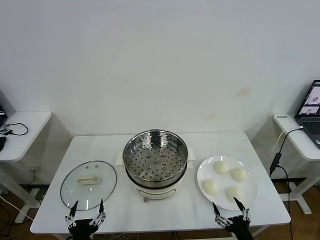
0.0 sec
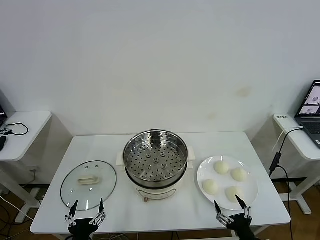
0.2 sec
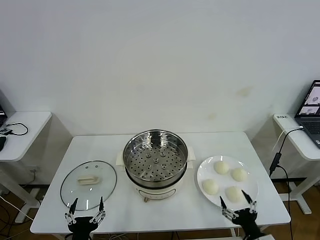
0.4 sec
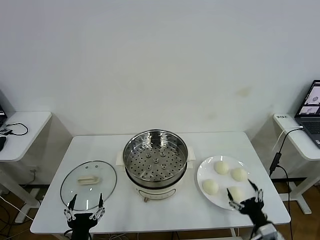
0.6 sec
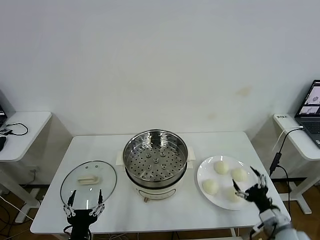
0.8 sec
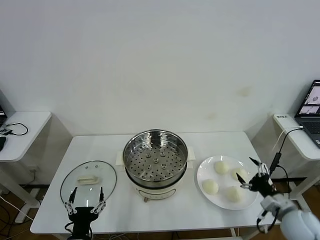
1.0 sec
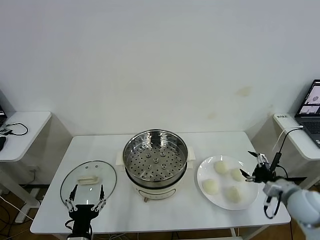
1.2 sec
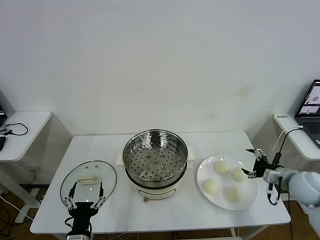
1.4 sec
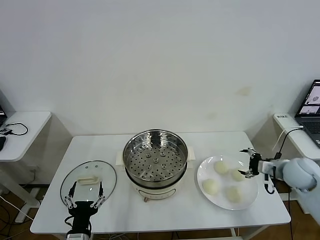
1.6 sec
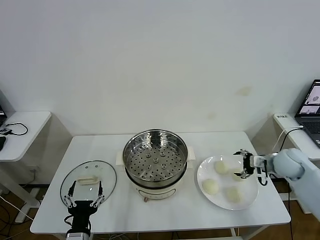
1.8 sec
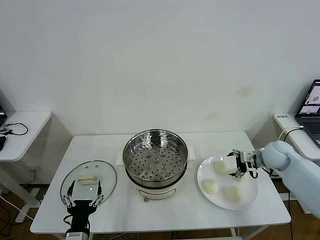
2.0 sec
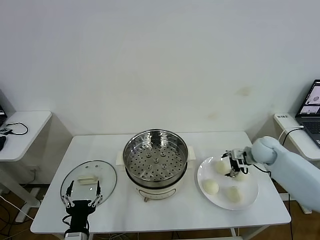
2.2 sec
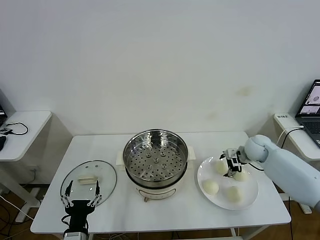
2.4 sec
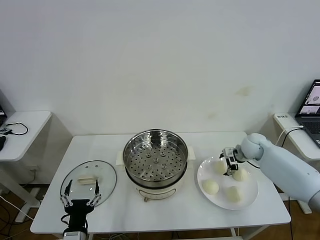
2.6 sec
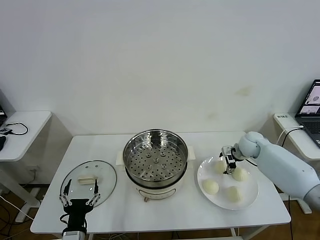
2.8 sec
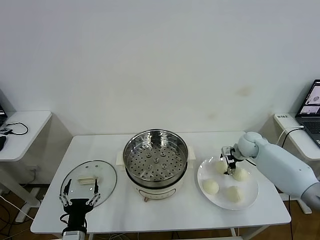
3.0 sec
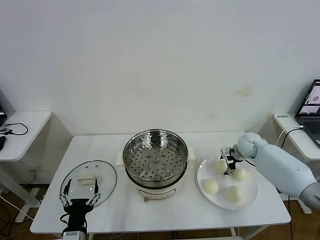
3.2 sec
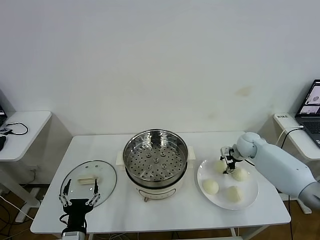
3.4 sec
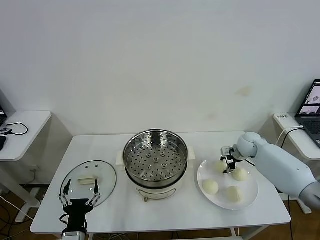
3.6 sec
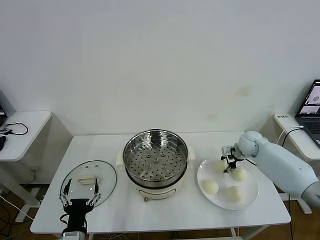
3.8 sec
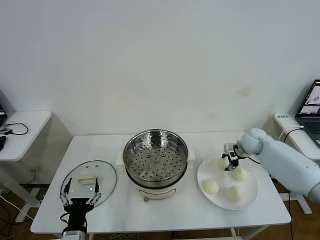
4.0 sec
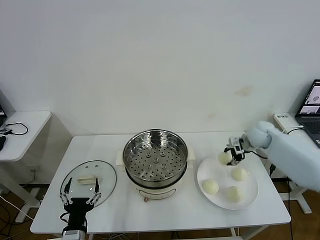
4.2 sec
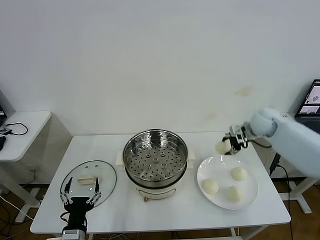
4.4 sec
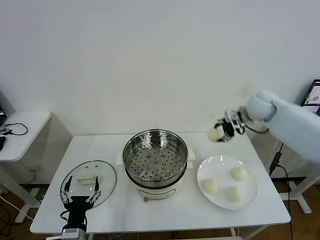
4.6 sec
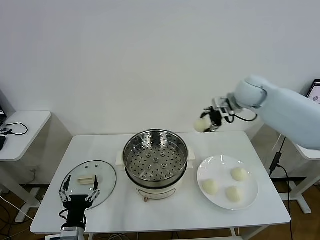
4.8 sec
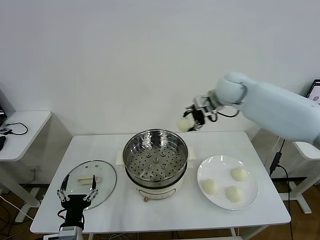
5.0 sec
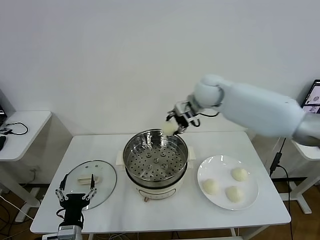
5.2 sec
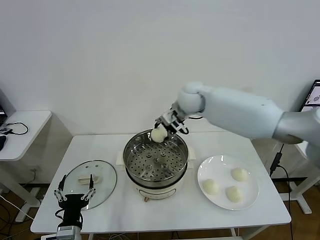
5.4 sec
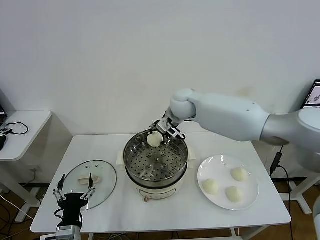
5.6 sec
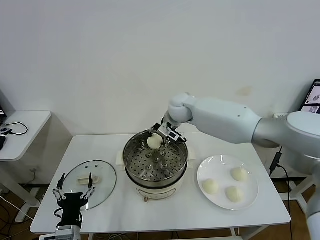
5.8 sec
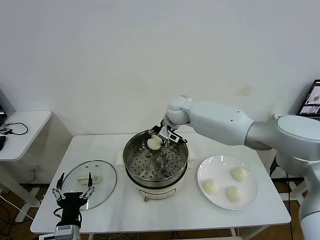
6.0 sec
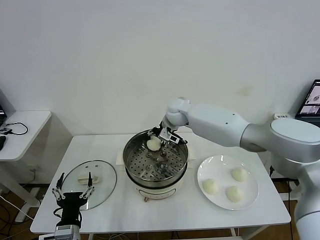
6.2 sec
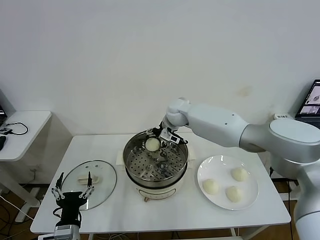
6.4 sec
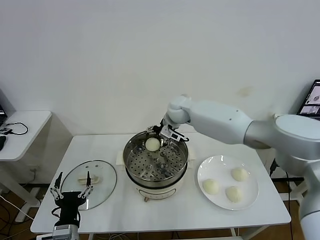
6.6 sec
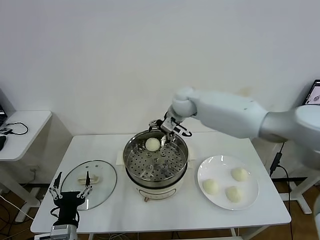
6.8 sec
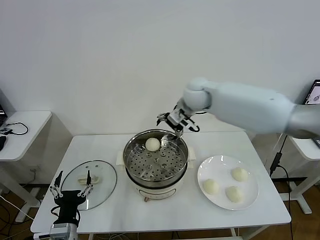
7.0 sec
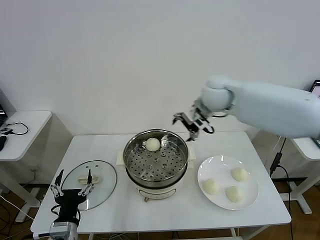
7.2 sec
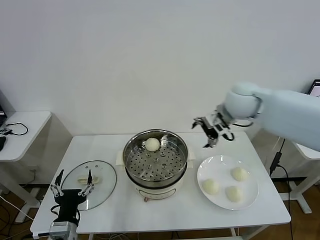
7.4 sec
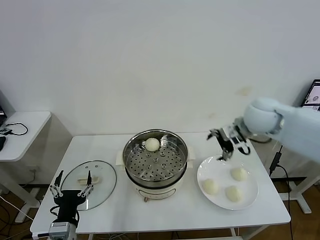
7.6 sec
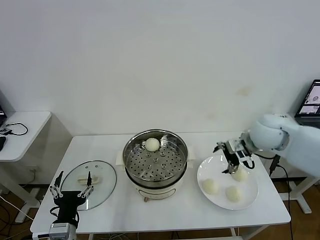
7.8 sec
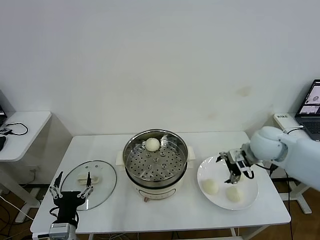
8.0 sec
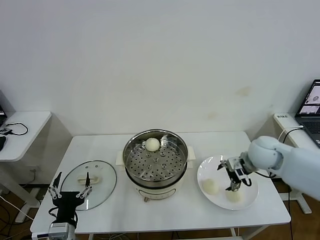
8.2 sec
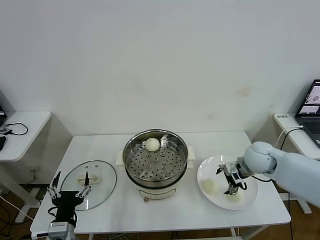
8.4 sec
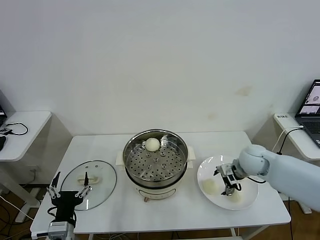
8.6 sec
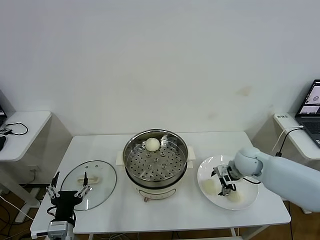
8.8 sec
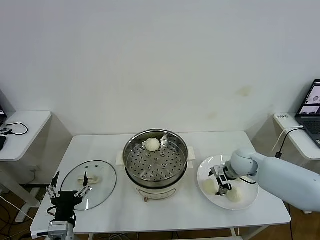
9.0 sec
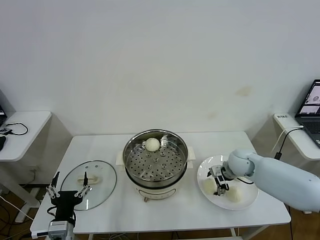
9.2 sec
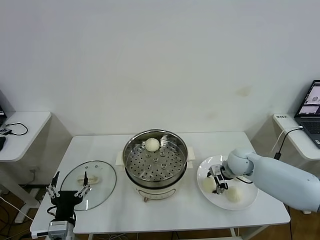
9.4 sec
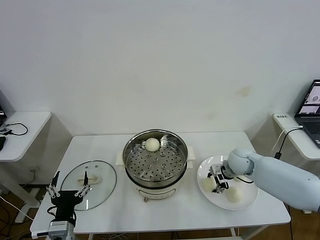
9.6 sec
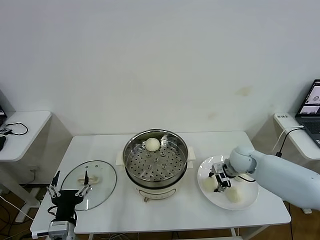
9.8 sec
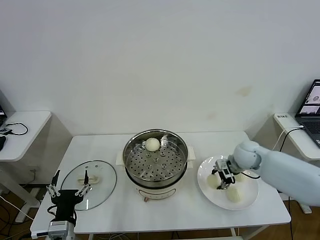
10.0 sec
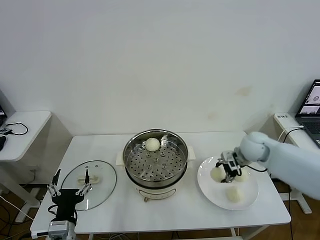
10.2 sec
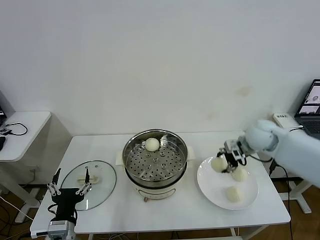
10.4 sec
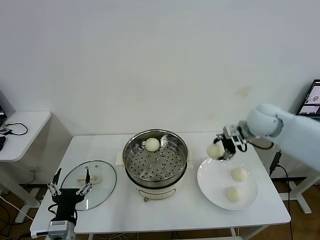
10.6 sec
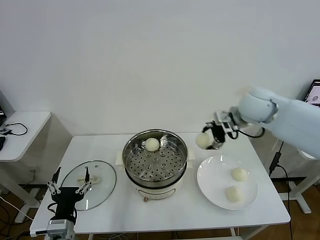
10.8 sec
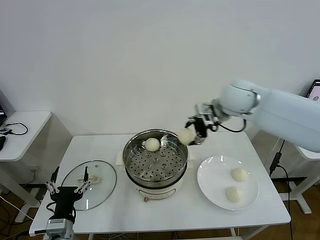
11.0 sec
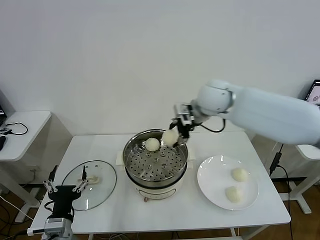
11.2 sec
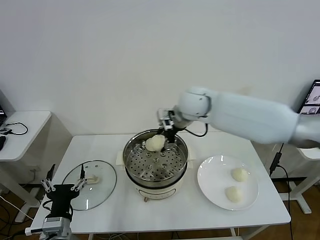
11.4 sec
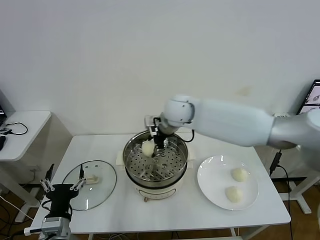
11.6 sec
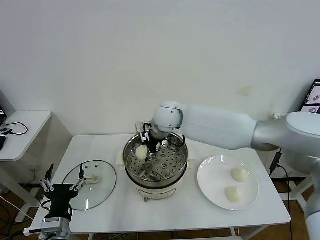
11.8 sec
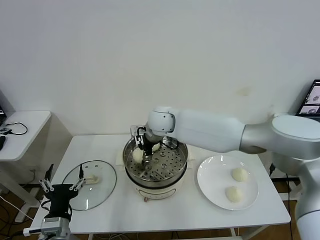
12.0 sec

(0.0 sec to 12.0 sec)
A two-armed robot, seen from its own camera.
Task of the whole recording: take steamed baozi put them in steamer then cover it.
Step, 0.0 sec - 3.4 sec: Grasp the baozi in the plate with right gripper.
Step, 3.6 sec - 6.2 sec: Place the baozi on the steamer with right gripper.
Step, 6.4 sec - 9.6 sec: Grasp the baozi in the plate with right gripper.
1.6 sec - 3.0 sec: The right gripper shifts some 15 cm forward and to the left.
3.0 sec - 4.4 sec: The right gripper is displaced upward by about 15 cm, and closes.
4.4 sec - 6.0 sec: The right gripper shifts approximately 25 cm to the left.
6.0 sec - 7.6 sec: The right gripper goes roughly 30 cm to the right and backward, and opens up.
7.6 sec - 9.0 sec: The right gripper is displaced downward by about 20 cm.
9.0 sec - 10.4 sec: The right gripper moves upward, roughly 15 cm, and closes up.
10.4 sec - 12.0 sec: The right gripper shifts roughly 30 cm to the left.

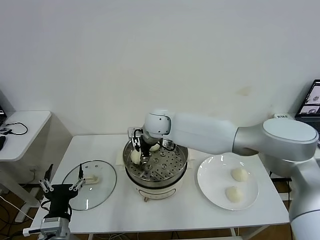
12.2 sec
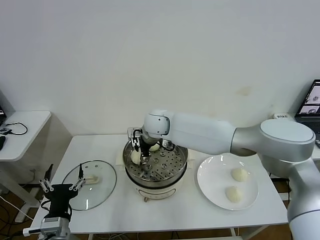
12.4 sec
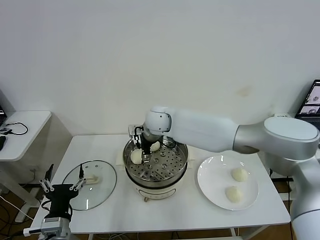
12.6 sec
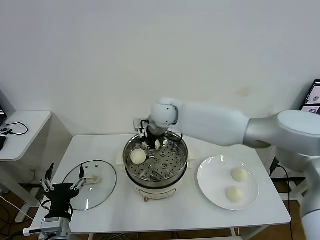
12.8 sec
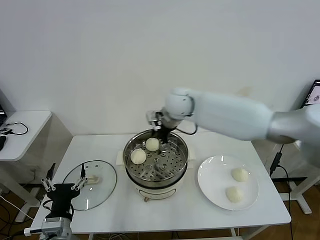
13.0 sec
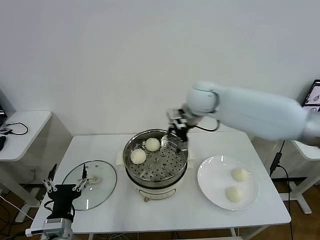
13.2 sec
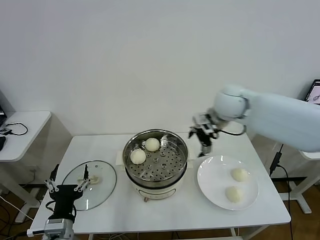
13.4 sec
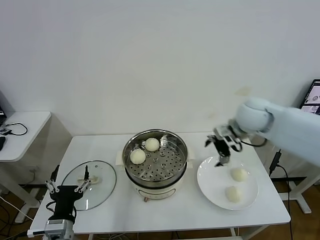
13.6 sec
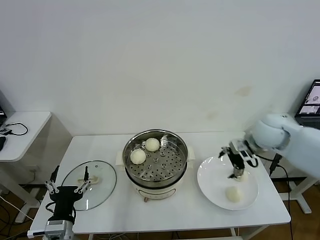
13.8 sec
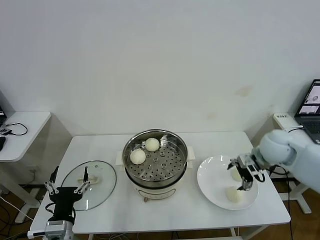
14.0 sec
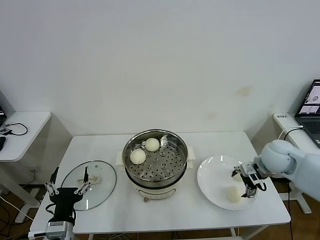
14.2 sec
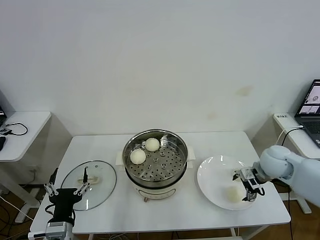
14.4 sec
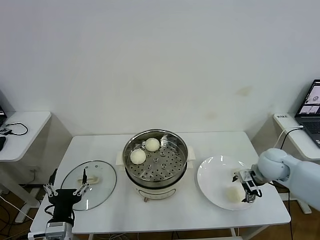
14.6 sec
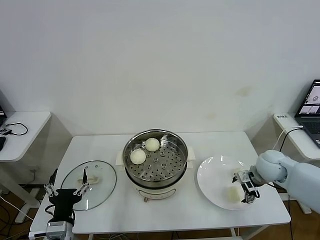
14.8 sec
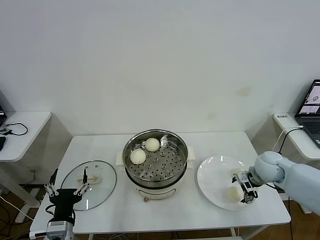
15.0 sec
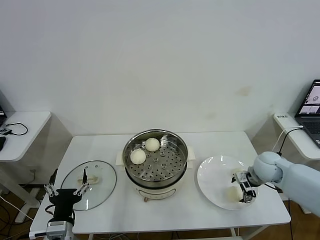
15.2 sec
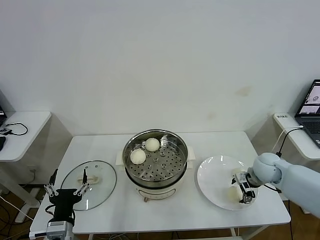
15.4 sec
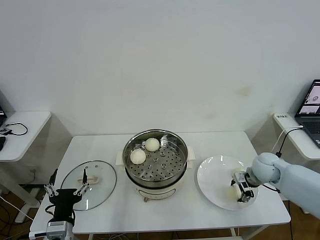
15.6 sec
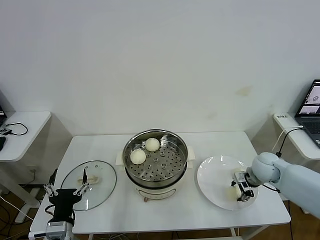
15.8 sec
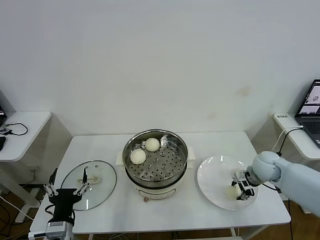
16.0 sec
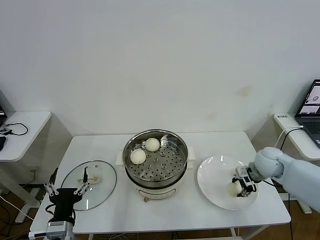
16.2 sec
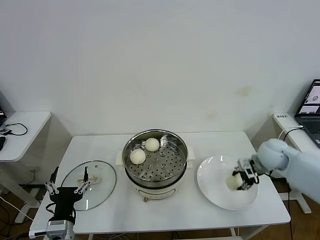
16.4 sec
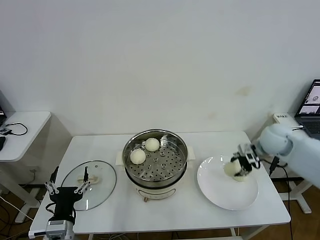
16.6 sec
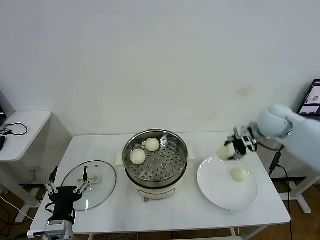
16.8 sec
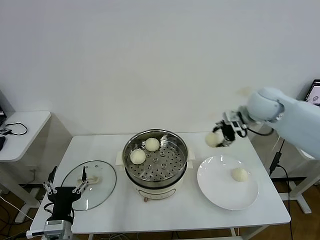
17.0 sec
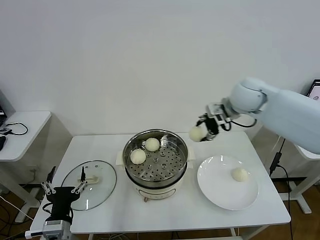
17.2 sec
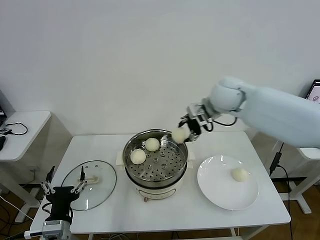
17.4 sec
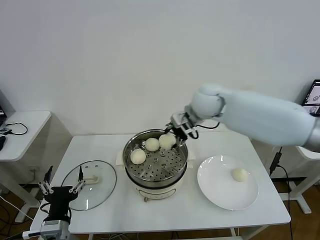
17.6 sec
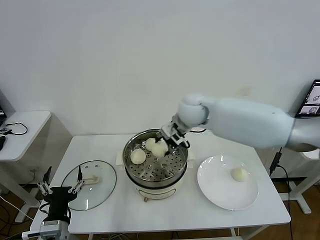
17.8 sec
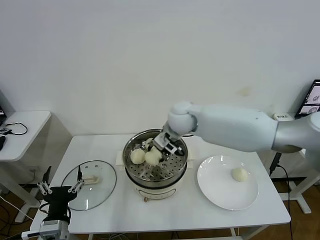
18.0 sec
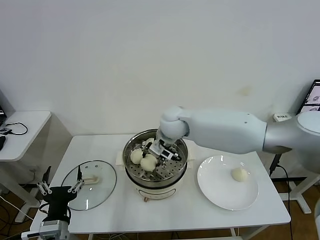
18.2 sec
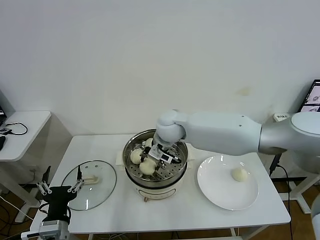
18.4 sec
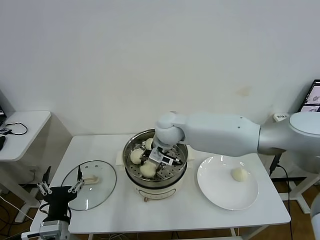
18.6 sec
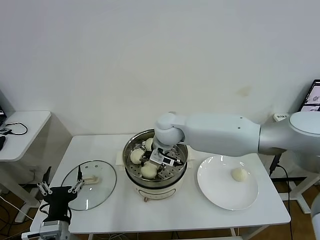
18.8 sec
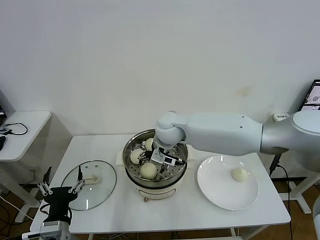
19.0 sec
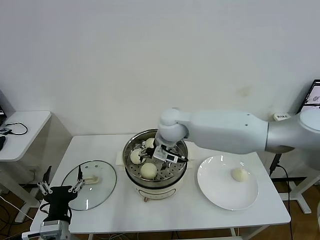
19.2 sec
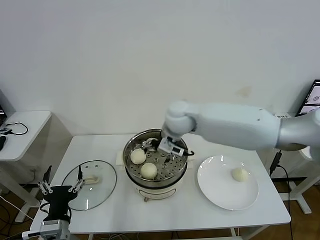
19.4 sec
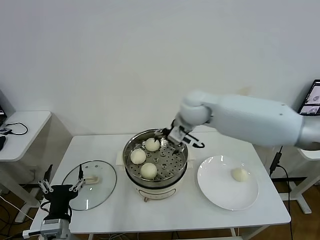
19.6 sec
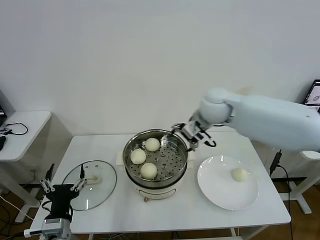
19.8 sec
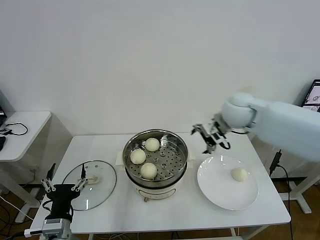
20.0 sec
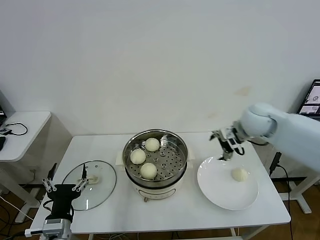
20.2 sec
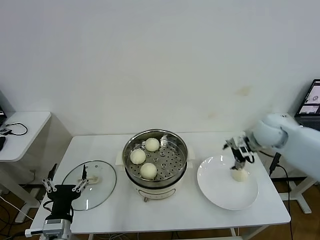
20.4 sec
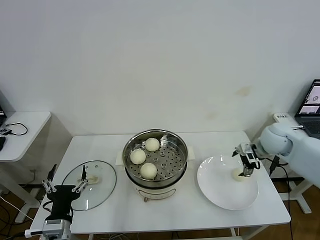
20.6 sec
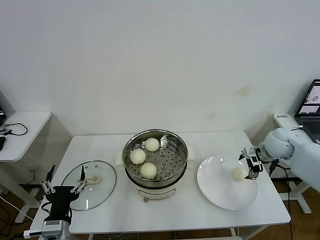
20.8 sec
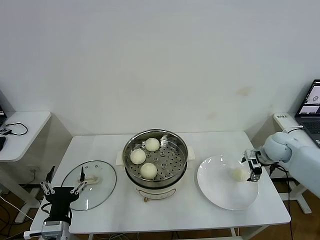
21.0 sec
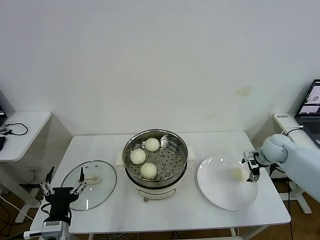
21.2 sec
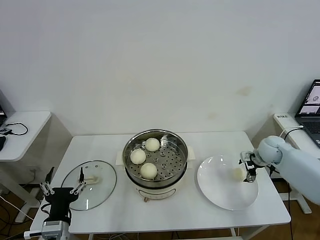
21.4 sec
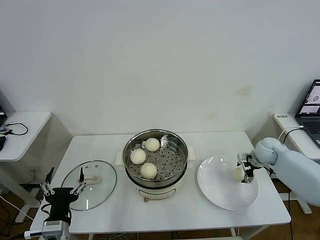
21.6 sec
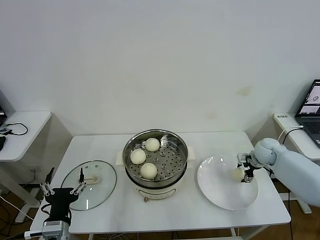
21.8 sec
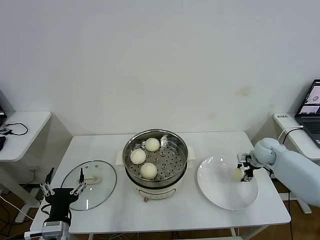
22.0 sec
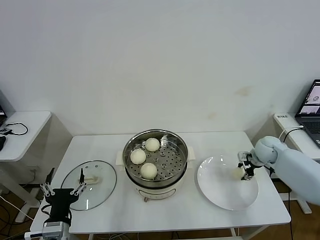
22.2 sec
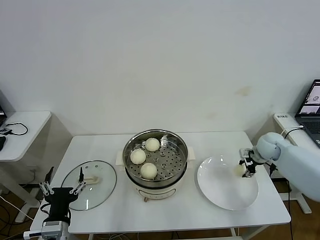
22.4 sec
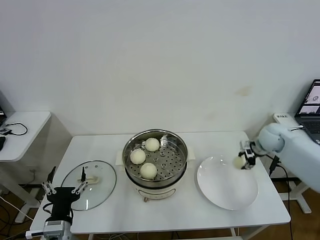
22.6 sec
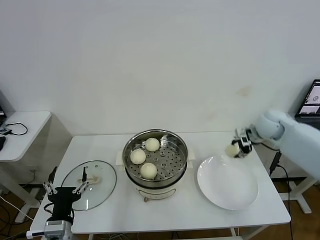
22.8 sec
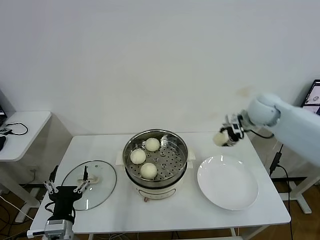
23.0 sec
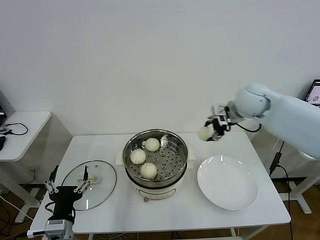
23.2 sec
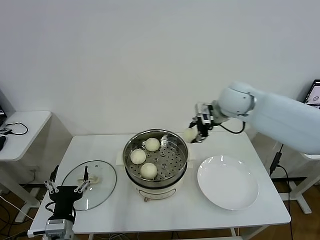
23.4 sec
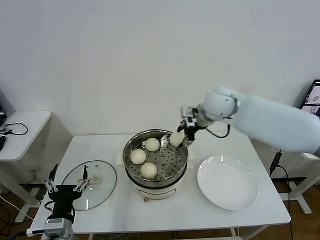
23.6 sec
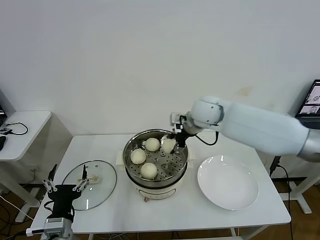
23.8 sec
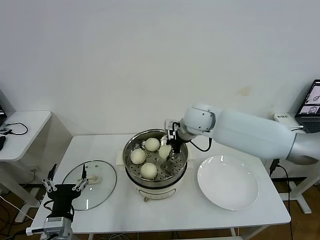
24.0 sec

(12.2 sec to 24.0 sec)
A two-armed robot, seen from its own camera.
Task of the whole recording: take steamed baozi put them in steamer then cover it.
Step, 12.6 sec - 15.8 sec: Grasp the baozi in the plate with right gripper.
Step, 16.0 sec - 18.8 sec: Place the baozi on the steamer with right gripper.
Step, 19.0 sec - 22.0 sec: Grasp the baozi in the plate with right gripper.
12.2 sec - 13.6 sec: The right gripper is displaced to the right by some 30 cm, and opens its fingers.
13.6 sec - 15.2 sec: The right gripper travels downward and to the right by approximately 20 cm.
15.2 sec - 16.6 sec: The right gripper is displaced upward by some 10 cm, and closes its fingers.
16.6 sec - 18.2 sec: The right gripper is displaced to the left by approximately 35 cm.
18.2 sec - 19.6 sec: The right gripper travels to the right and upward by approximately 10 cm, and opens.
19.6 sec - 21.0 sec: The right gripper heads to the right and downward, covering about 35 cm.
21.0 sec - 22.6 sec: The right gripper travels downward and back again, some 5 cm each way, and closes.
22.6 sec - 24.0 sec: The right gripper shifts roughly 30 cm to the left.
